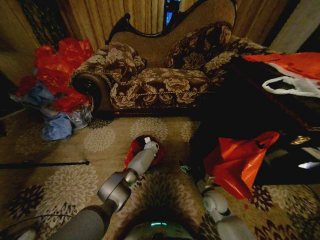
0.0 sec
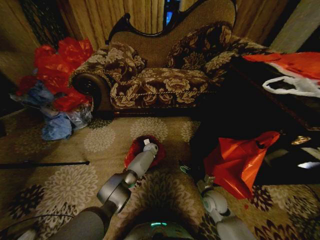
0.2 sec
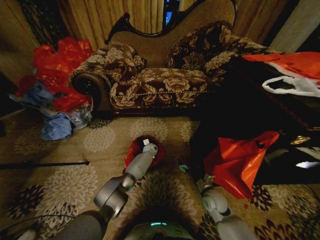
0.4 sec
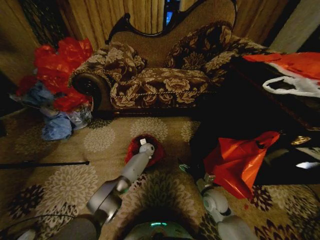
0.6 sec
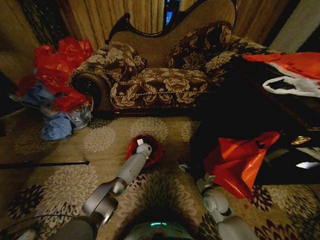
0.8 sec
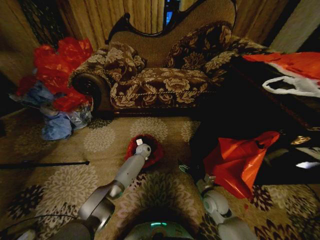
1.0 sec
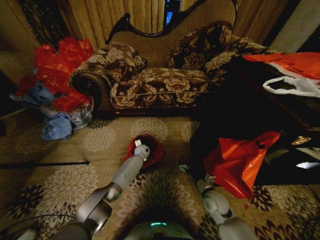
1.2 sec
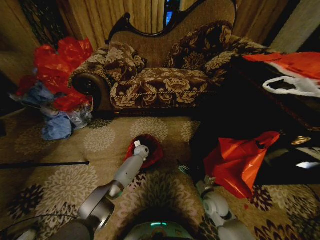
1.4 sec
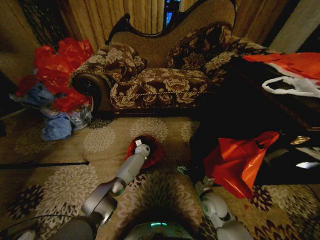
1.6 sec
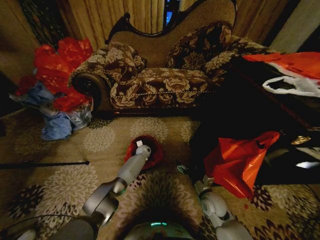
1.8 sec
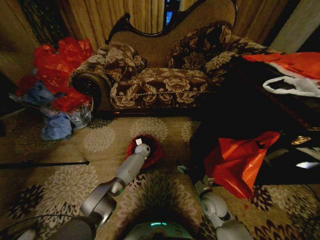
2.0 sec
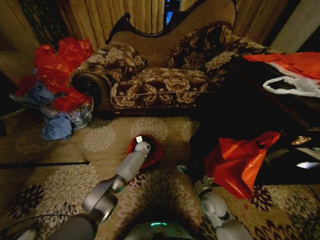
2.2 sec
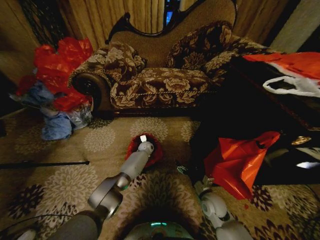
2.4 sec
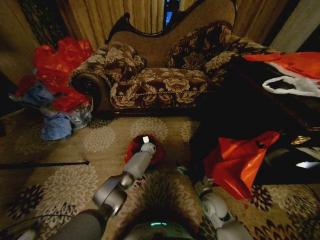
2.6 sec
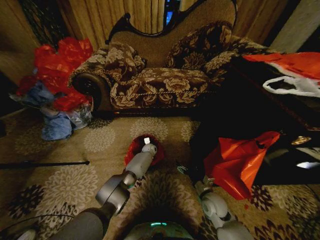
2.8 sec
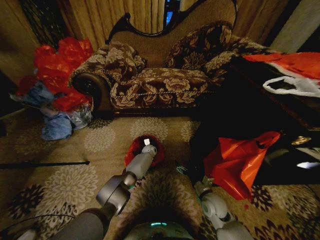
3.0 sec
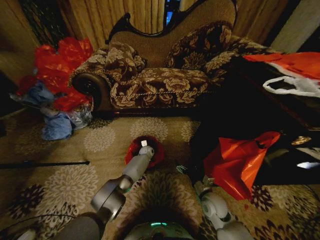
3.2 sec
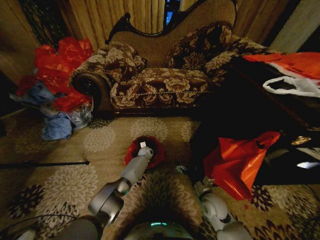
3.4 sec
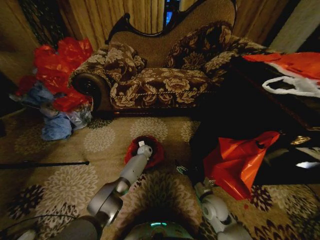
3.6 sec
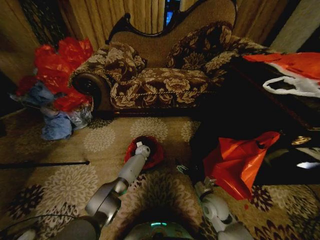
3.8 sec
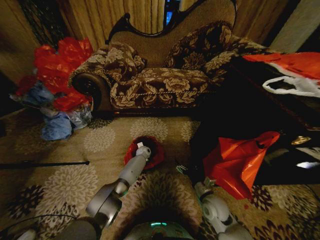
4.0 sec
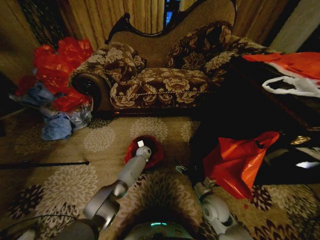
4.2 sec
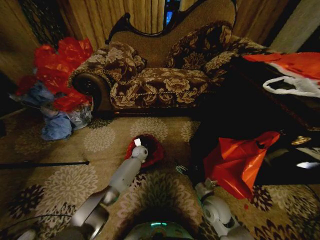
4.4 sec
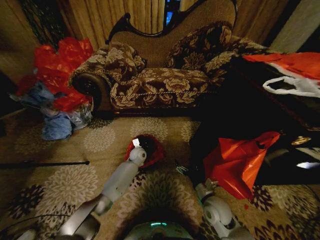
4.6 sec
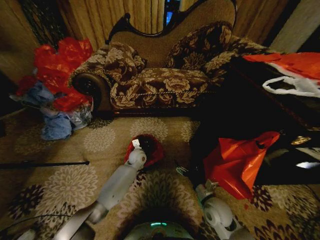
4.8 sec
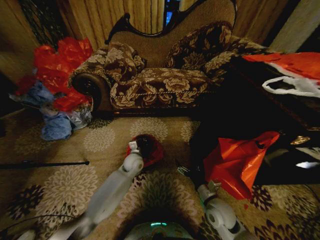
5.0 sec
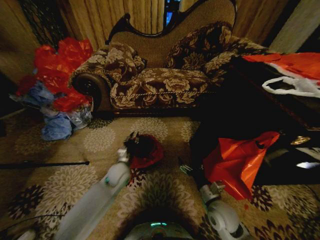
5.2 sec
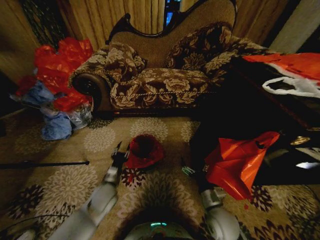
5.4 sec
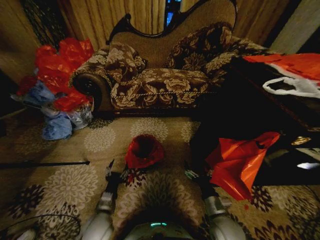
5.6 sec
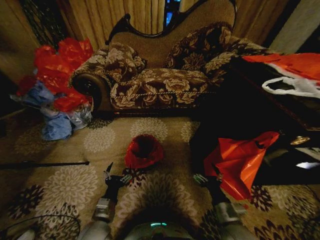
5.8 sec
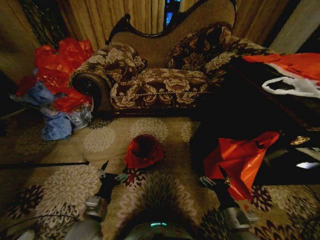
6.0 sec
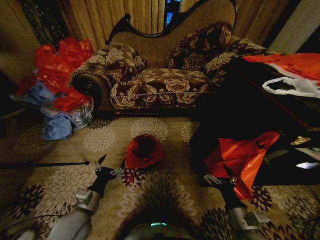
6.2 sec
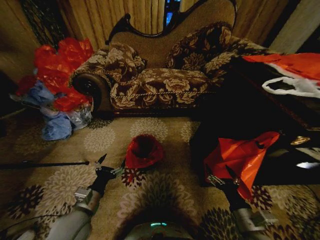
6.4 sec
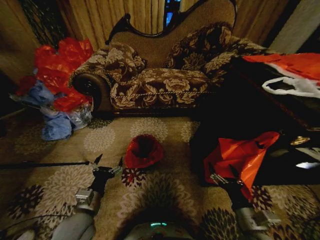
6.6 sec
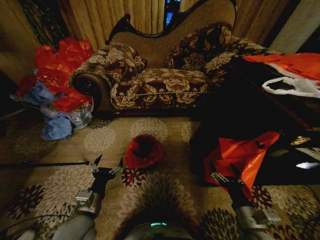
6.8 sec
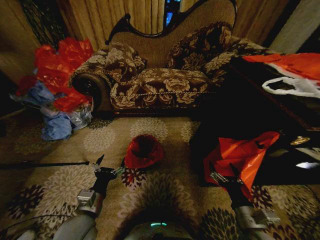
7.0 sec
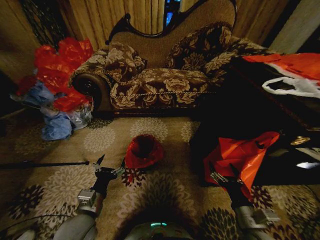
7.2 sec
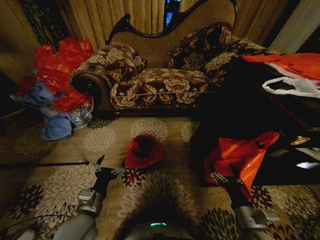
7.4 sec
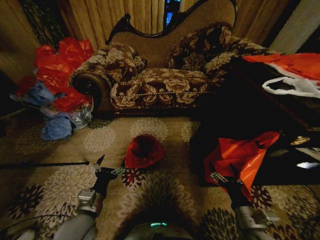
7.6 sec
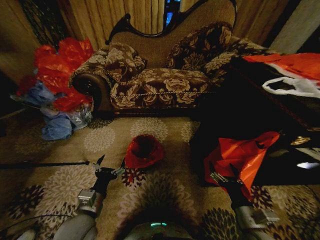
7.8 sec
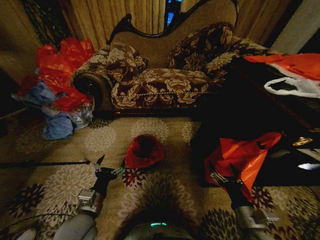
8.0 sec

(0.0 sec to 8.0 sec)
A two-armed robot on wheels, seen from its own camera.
Task of the whole recording: Place a garbage bag over the trash bin.
0.0 sec - 1.6 sec: The left gripper shifts approximately 5 cm to the left.
1.6 sec - 3.2 sec: There are only small adjustments of the grippers.
3.2 sec - 4.8 sec: The left gripper goes roughly 15 cm backward and upward.
4.8 sec - 6.4 sec: The left gripper goes about 35 cm backward and to the left, and opens up. The right gripper goes roughly 15 cm backward, to the right and upward.
6.4 sec - 8.0 sec: The grippers make only small movements.

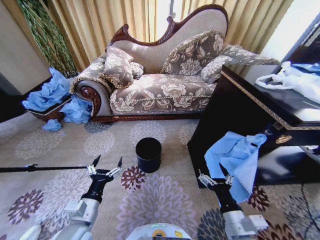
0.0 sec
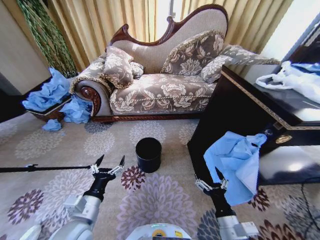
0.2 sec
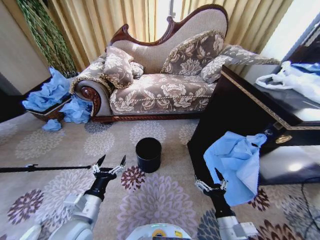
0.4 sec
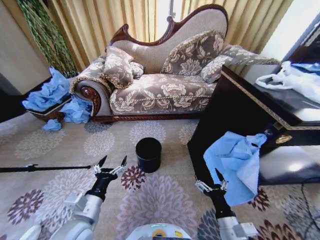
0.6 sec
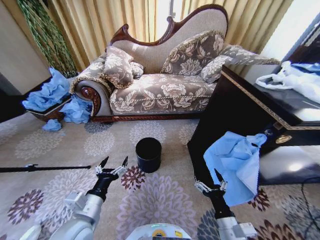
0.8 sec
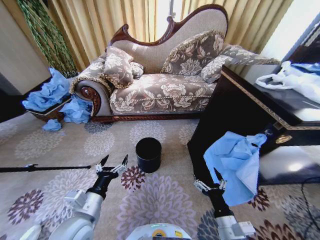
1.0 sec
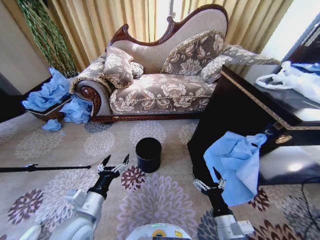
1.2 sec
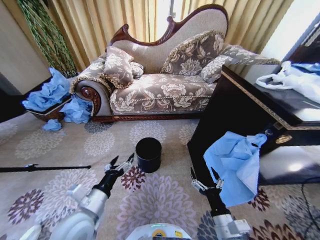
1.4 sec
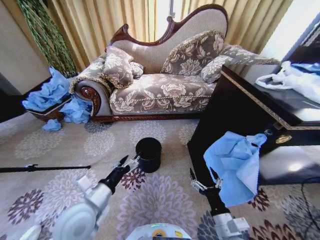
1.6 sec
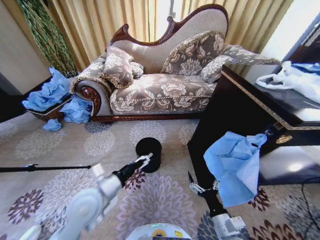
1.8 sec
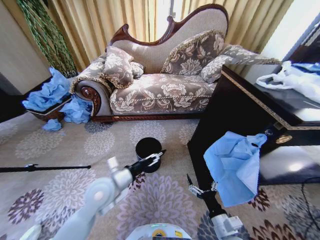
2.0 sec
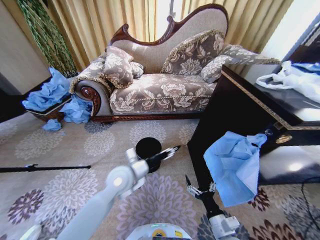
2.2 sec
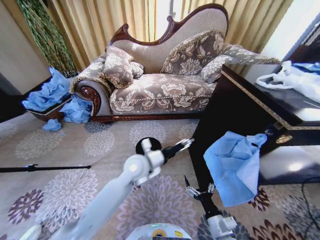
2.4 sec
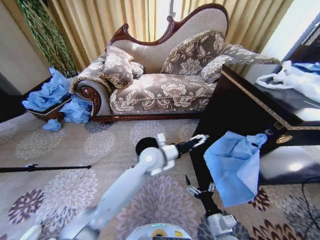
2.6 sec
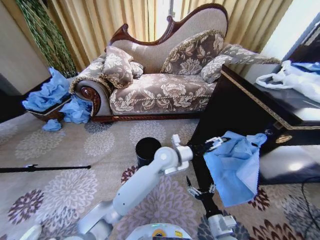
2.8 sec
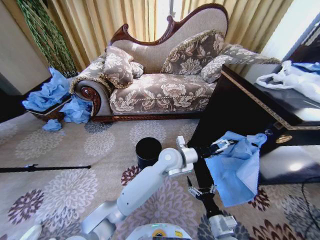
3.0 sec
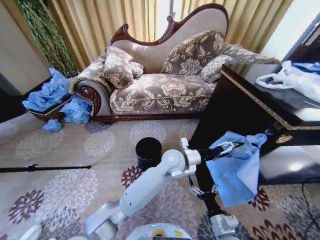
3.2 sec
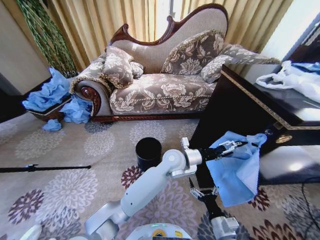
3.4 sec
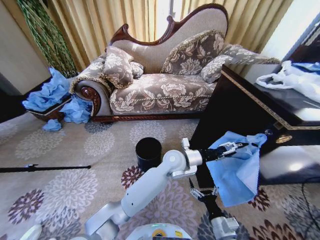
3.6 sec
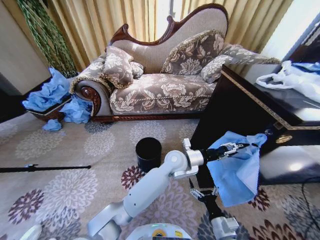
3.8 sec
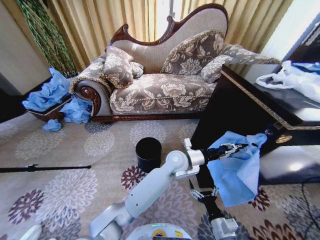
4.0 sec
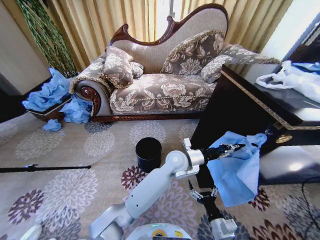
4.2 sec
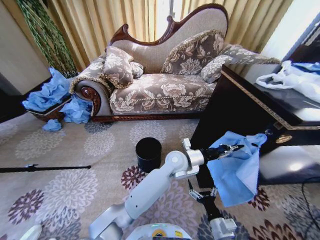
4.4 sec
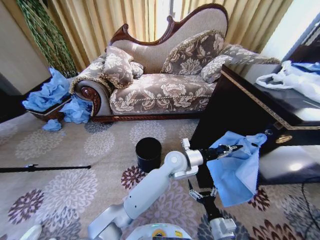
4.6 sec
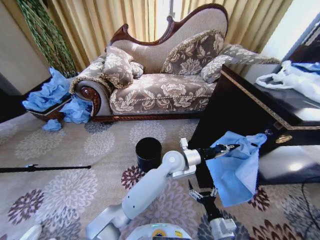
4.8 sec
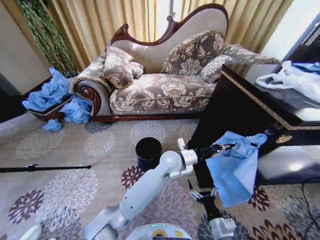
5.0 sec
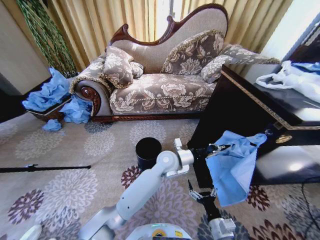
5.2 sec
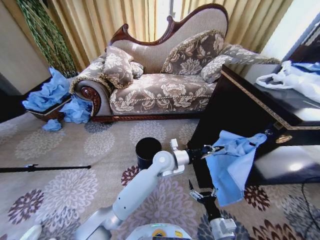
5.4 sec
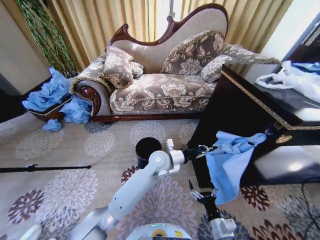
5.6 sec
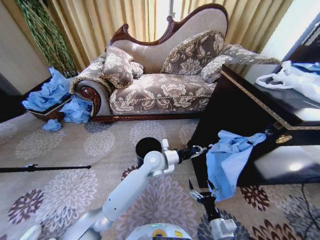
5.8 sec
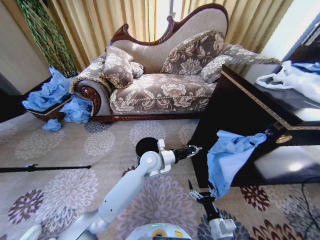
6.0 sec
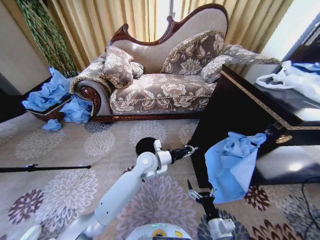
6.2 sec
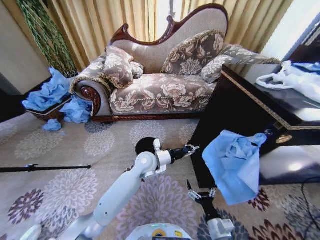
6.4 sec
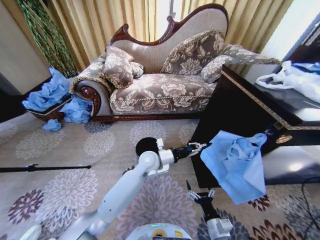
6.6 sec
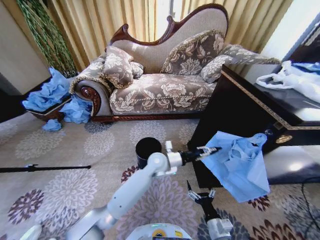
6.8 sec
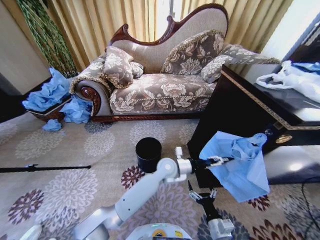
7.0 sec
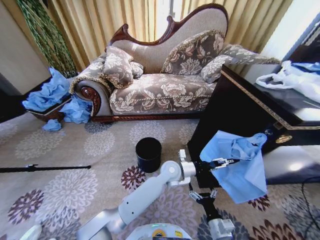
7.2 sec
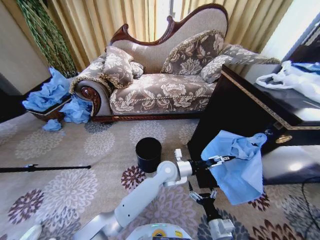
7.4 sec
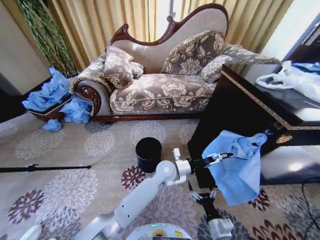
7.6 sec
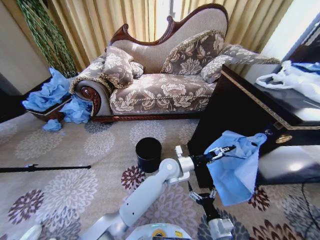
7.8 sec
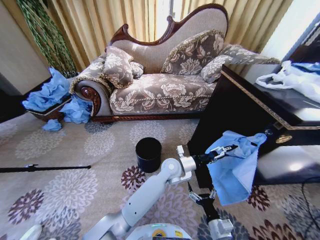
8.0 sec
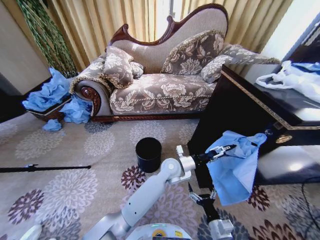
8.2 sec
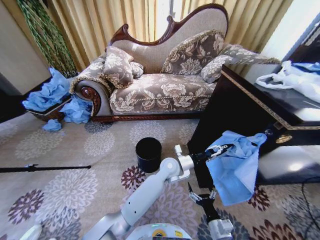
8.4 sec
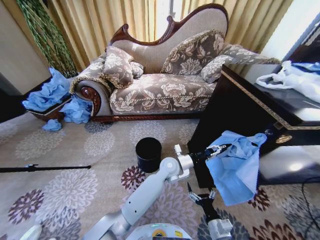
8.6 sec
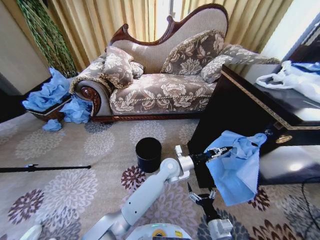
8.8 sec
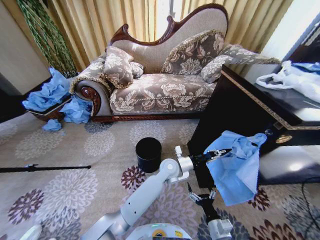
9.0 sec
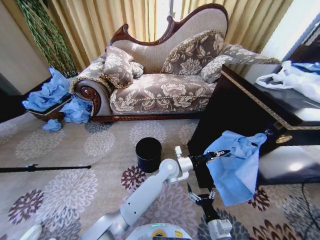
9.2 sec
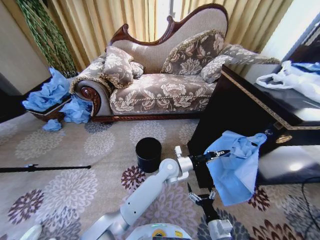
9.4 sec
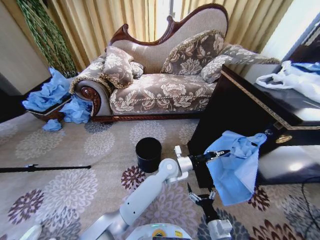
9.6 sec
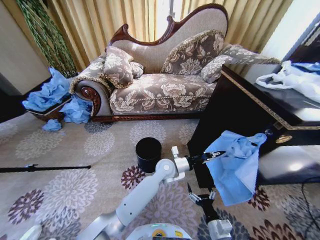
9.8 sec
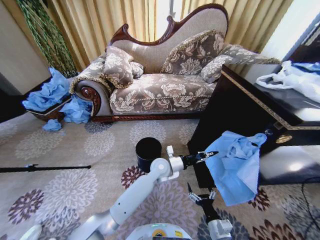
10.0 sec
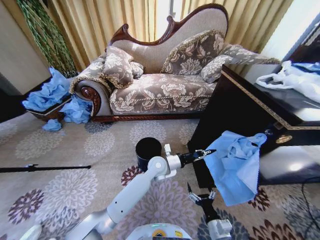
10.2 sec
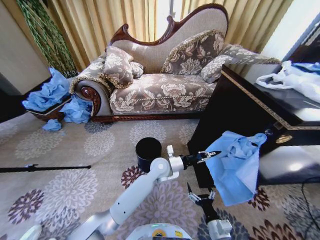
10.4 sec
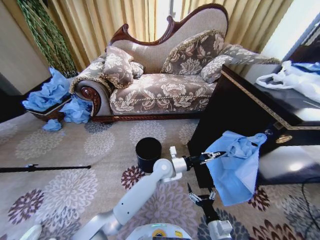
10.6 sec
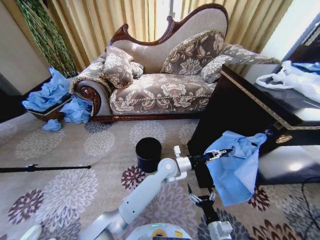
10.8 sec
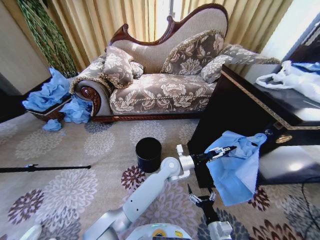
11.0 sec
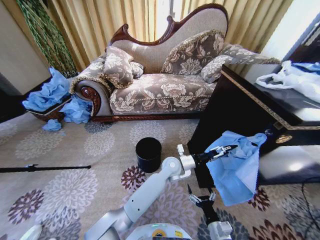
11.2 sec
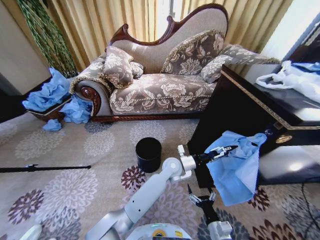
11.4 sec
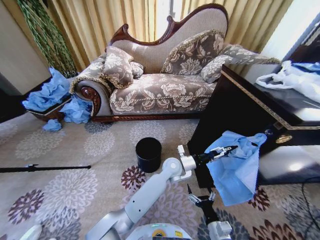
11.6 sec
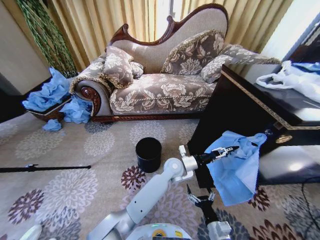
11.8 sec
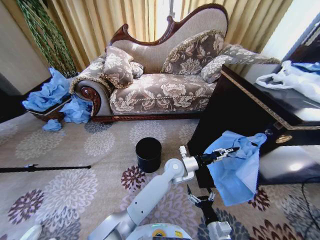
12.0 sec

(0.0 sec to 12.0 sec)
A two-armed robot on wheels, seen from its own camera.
Task of the whole recording: Place a garbage bag over the trash bin.
1.6 sec - 3.0 sec: The right gripper shifts some 5 cm downward; the left gripper shifts approximately 35 cm to the right and forward.
3.0 sec - 4.4 sec: The left gripper closes up.
4.4 sec - 6.0 sec: The left gripper shifts approximately 10 cm to the left.
6.0 sec - 7.6 sec: The left gripper moves to the right, some 5 cm, and opens.
7.6 sec - 9.0 sec: The left gripper closes.
9.0 sec - 10.4 sec: The grippers stay close to where they were, moving slightly.
10.4 sec - 12.0 sec: The left gripper travels to the right by roughly 5 cm, and opens up.

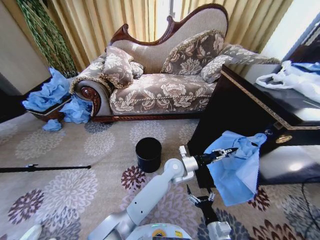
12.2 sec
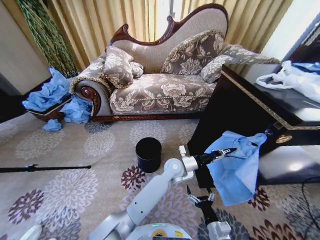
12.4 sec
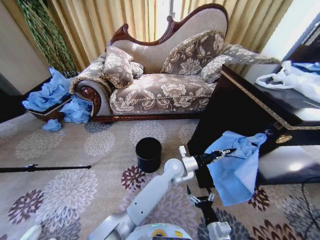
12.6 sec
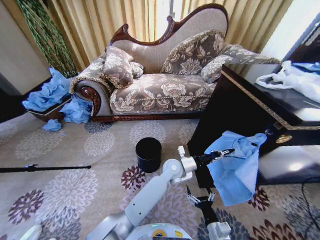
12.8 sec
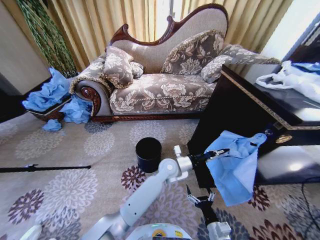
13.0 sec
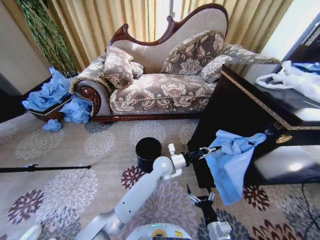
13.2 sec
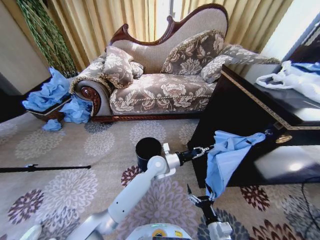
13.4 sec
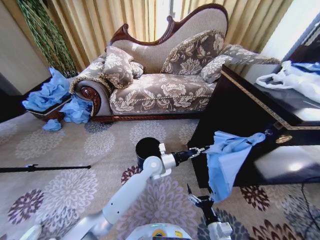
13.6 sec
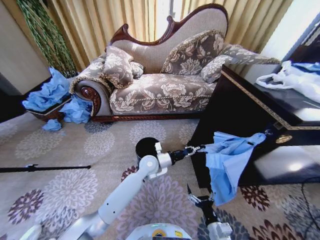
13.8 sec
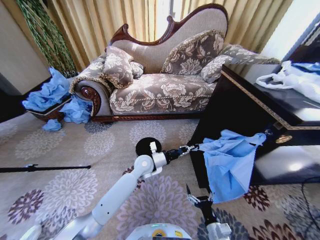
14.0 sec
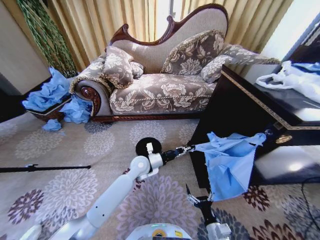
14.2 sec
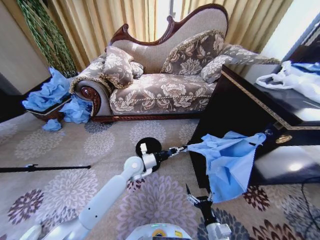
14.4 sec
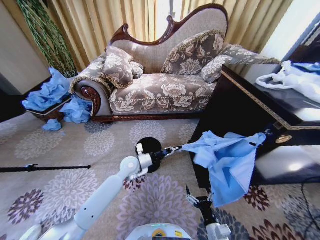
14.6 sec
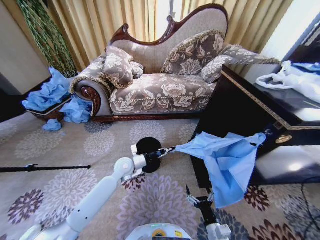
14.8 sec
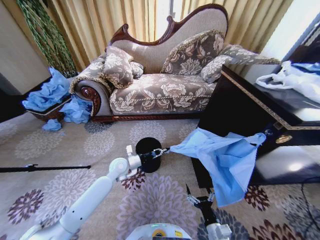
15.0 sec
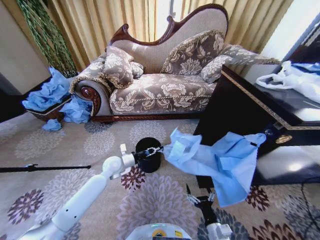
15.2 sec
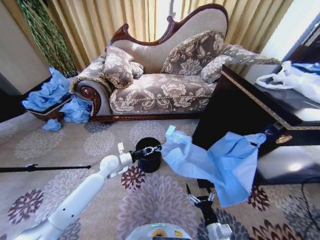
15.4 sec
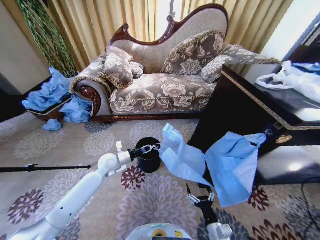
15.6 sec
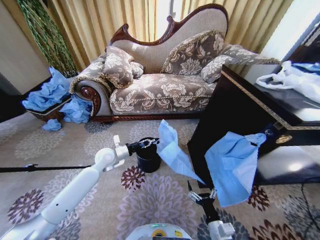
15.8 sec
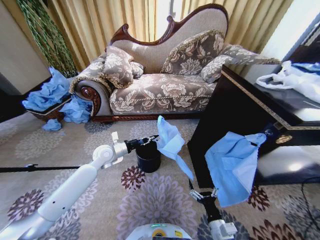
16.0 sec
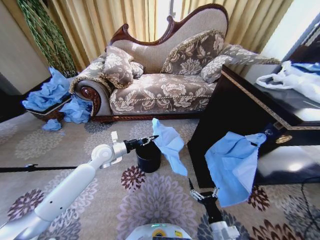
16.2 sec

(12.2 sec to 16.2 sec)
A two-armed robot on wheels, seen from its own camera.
Task of the whole recording: Place a garbage bag over the trash bin.
12.2 sec - 13.6 sec: The left gripper is displaced to the left by roughly 10 cm.
13.6 sec - 14.8 sec: The left gripper goes approximately 15 cm to the left.
14.8 sec - 16.2 sec: The left gripper travels to the left and upward by roughly 10 cm.
